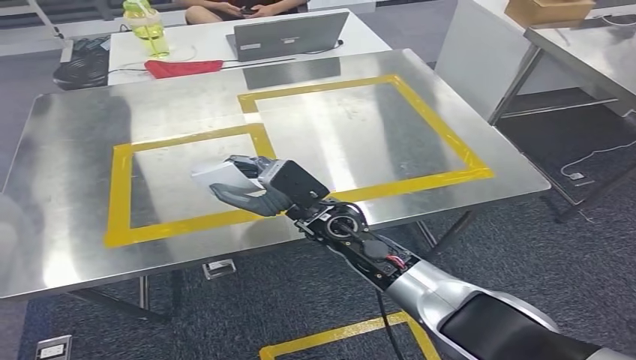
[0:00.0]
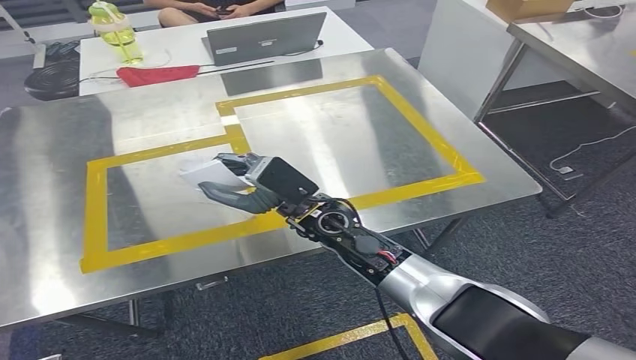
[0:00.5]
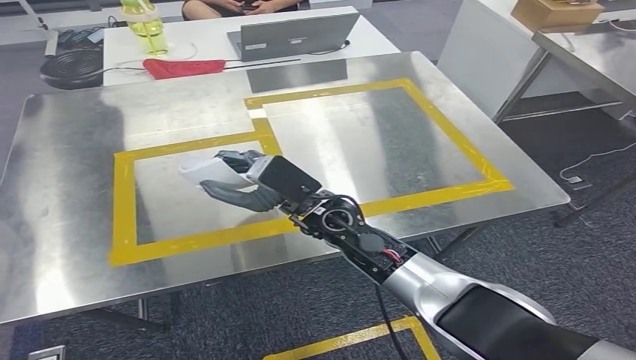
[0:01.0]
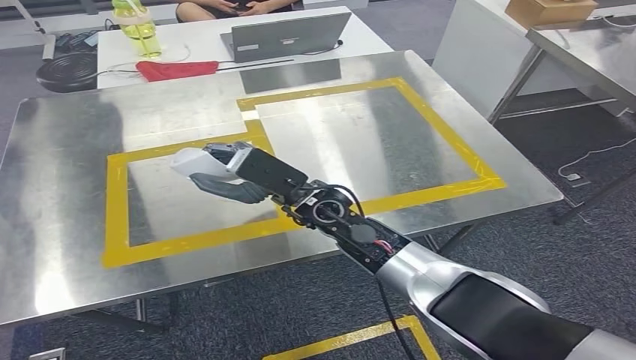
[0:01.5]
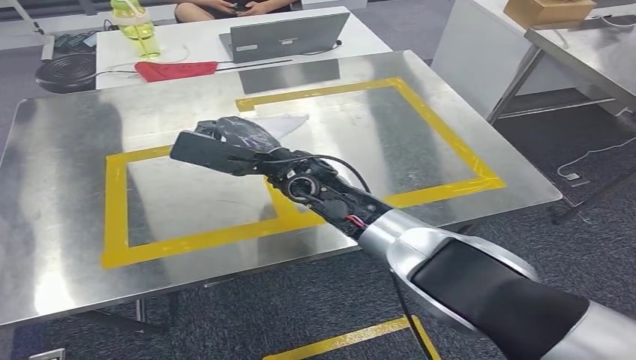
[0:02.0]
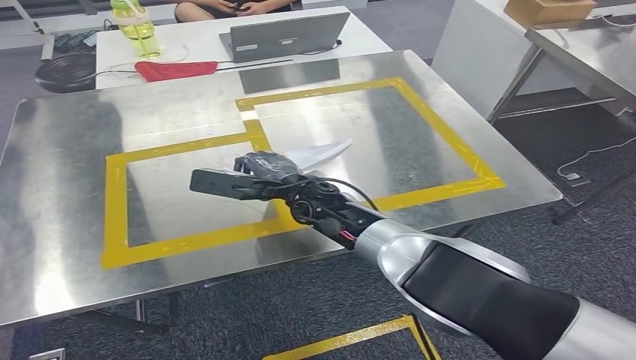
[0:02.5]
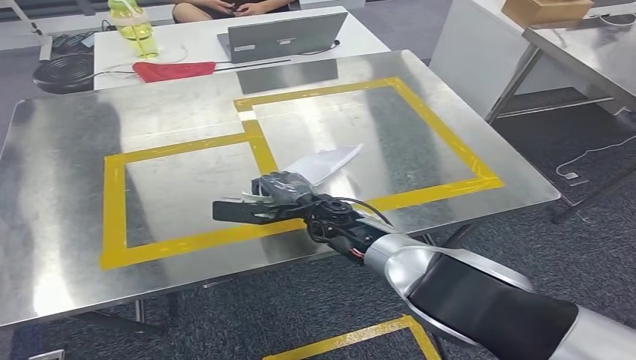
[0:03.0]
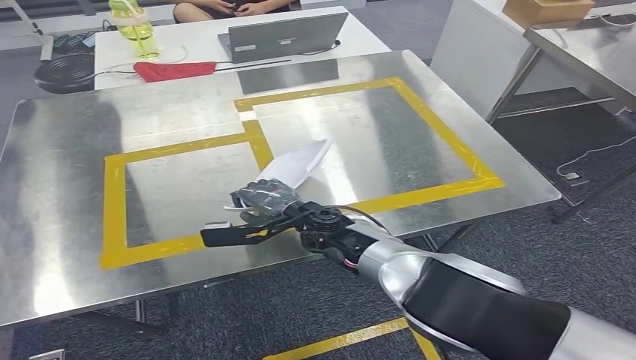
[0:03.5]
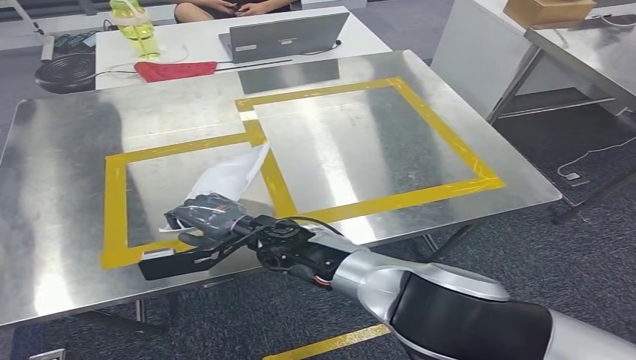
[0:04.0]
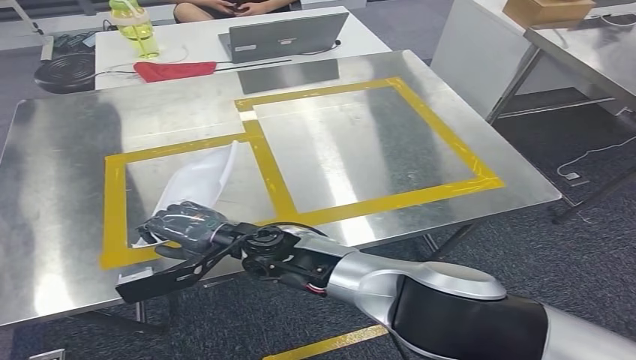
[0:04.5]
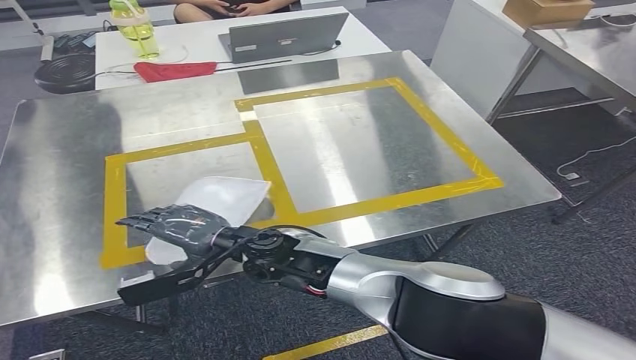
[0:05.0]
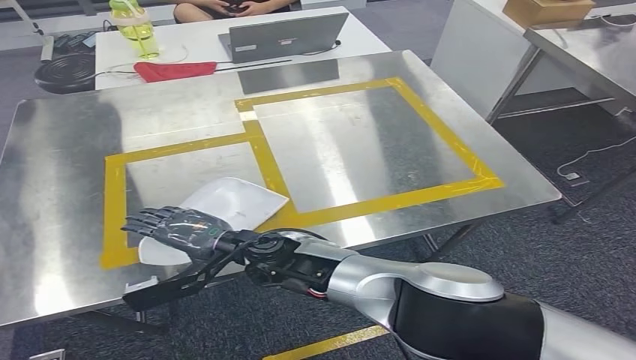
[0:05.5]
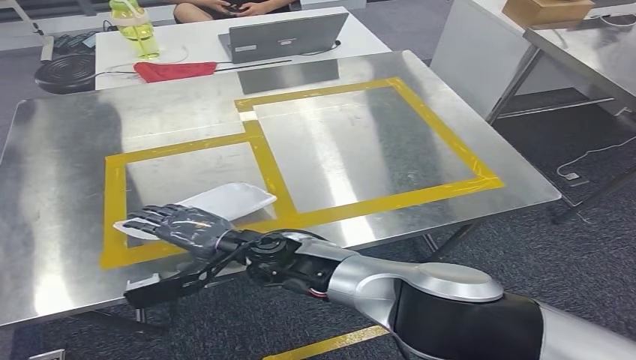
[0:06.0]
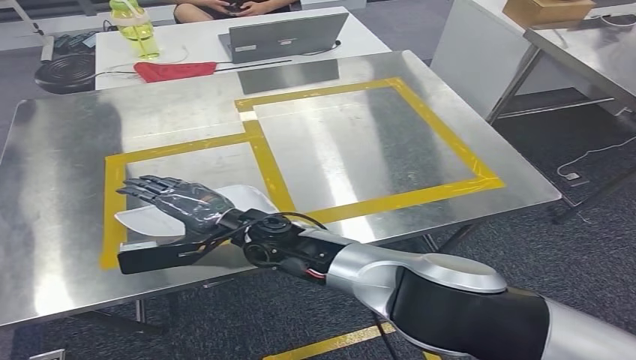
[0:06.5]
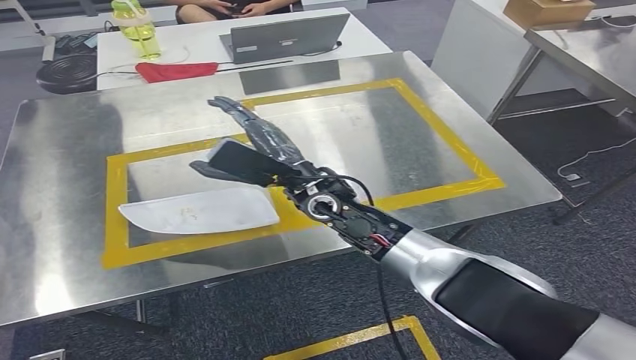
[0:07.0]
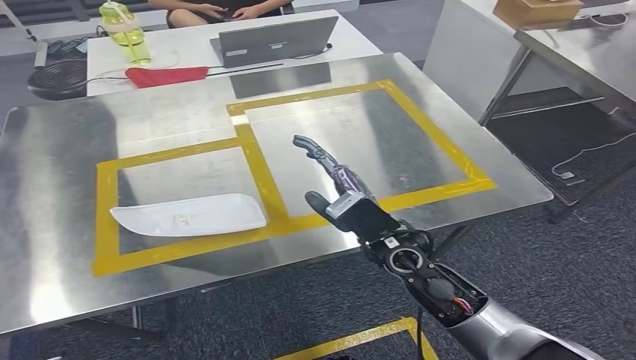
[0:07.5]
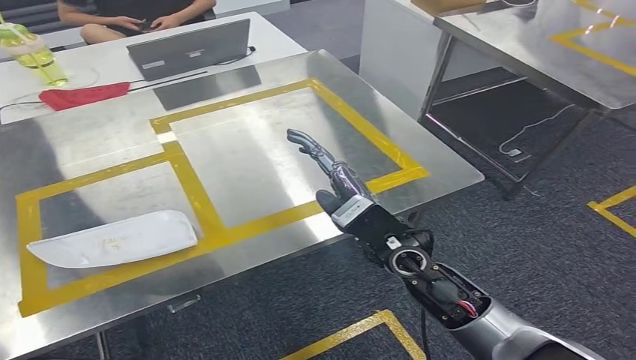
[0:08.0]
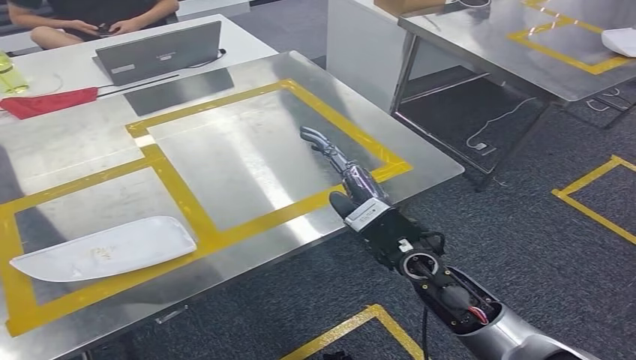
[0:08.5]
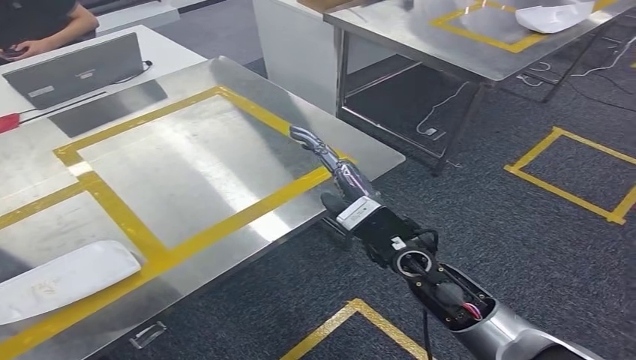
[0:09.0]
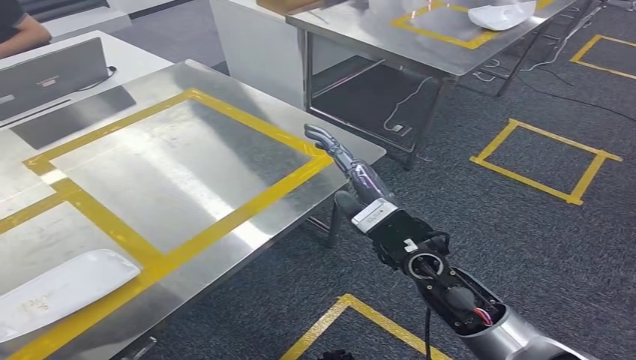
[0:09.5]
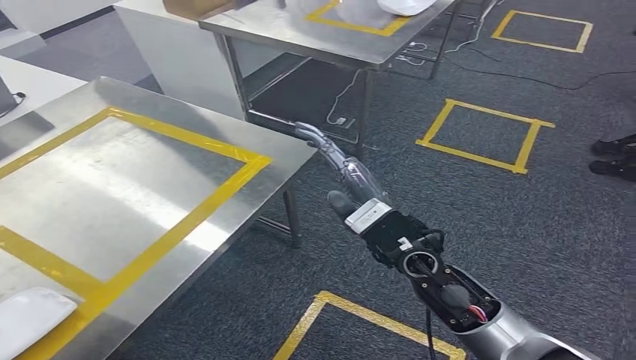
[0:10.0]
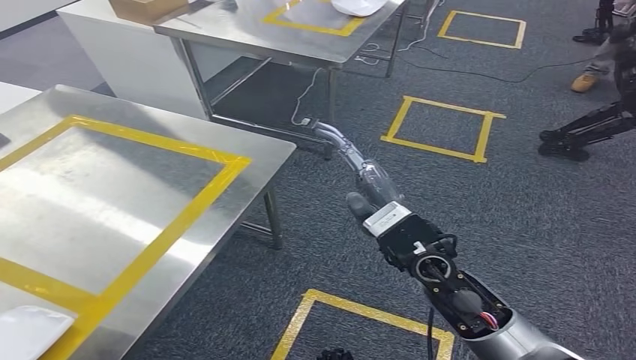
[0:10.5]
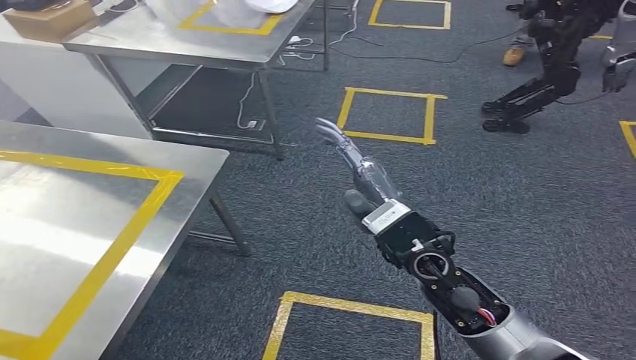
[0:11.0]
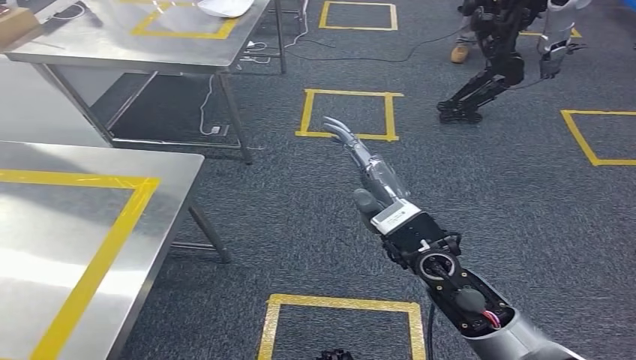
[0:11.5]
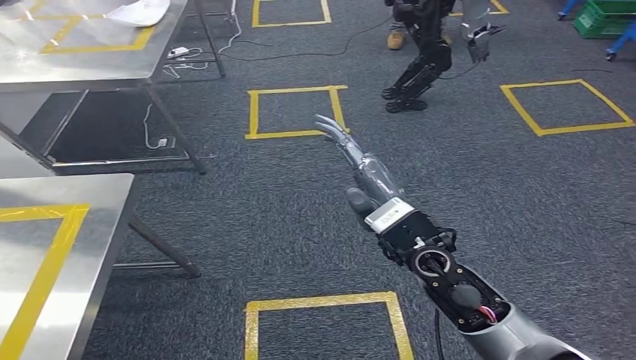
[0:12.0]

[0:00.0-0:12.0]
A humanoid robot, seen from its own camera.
Step, 0:00.0 to 0:07.0: Insert the small parts into the corresponding holes on the workbench.
0:02.0 to 0:04.0: The right hand moves downward, backward and to the left, roughly 10 cm.
0:04.0 to 0:06.0: The hands make only small movements.

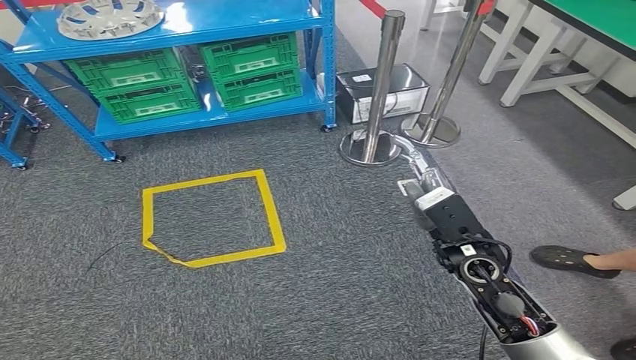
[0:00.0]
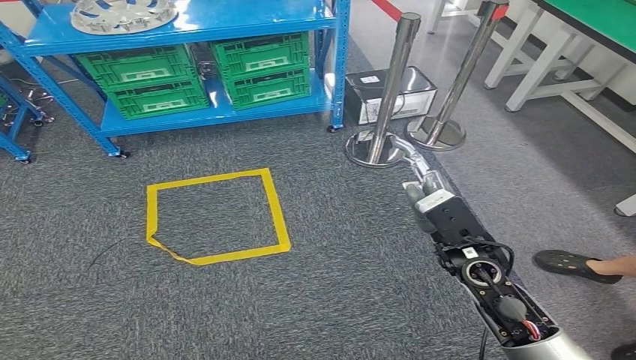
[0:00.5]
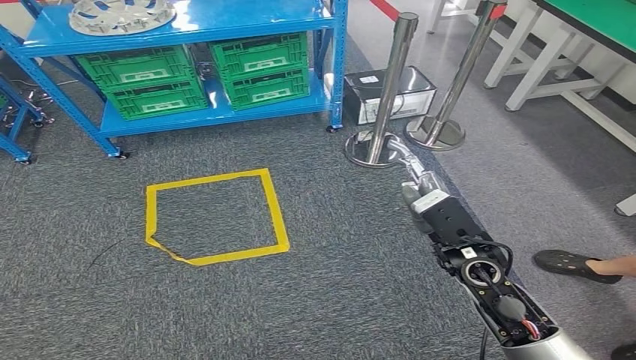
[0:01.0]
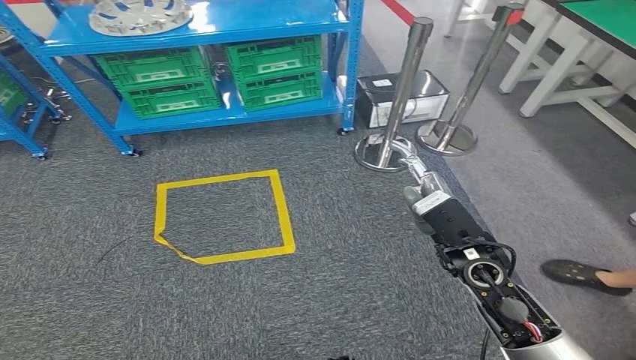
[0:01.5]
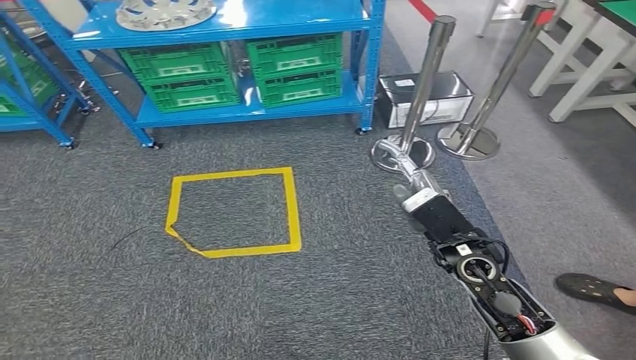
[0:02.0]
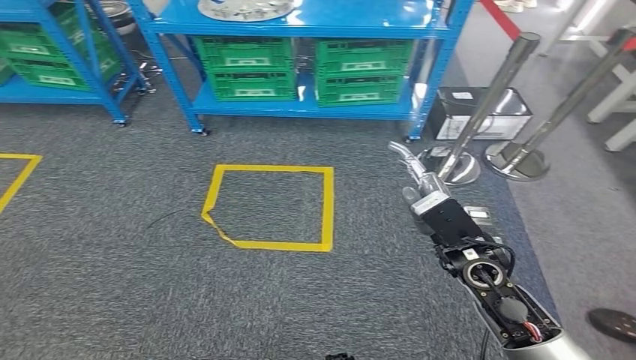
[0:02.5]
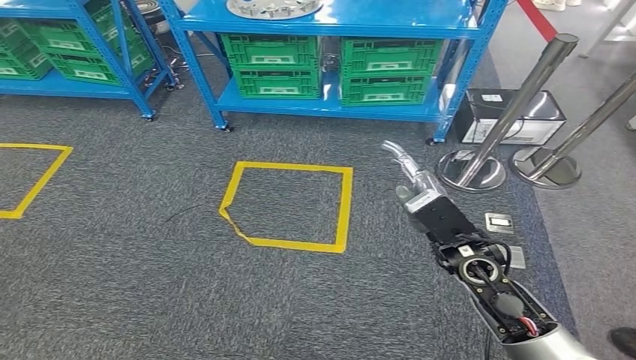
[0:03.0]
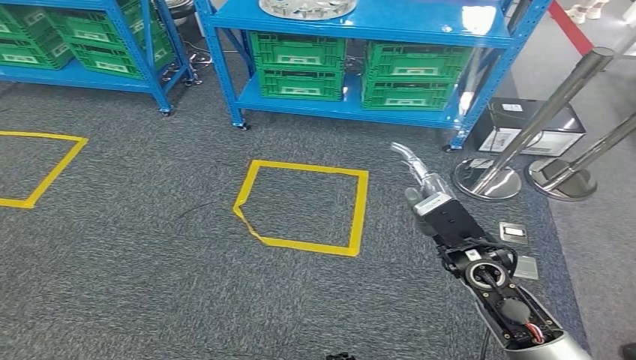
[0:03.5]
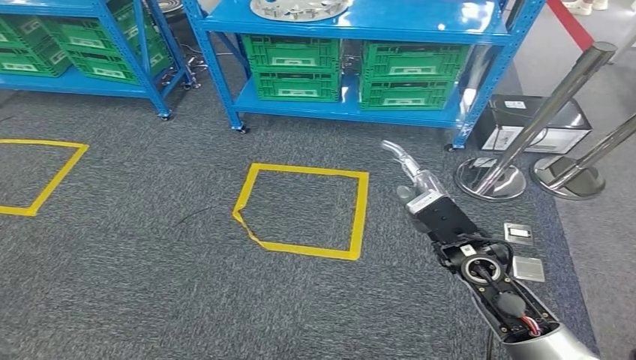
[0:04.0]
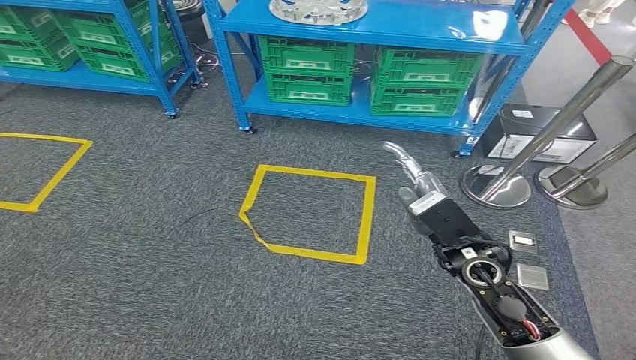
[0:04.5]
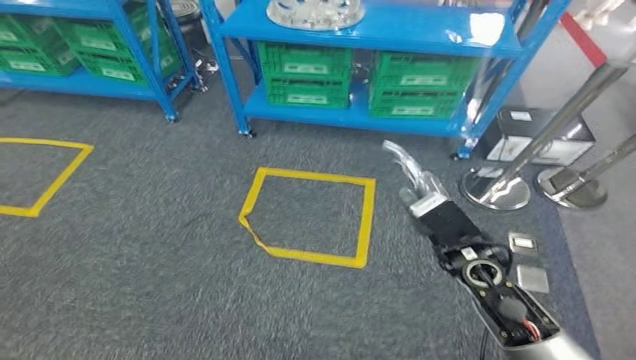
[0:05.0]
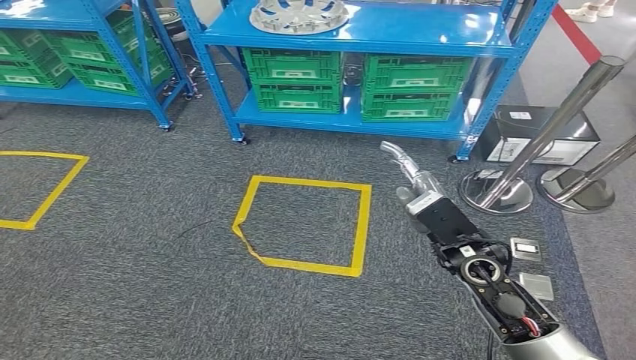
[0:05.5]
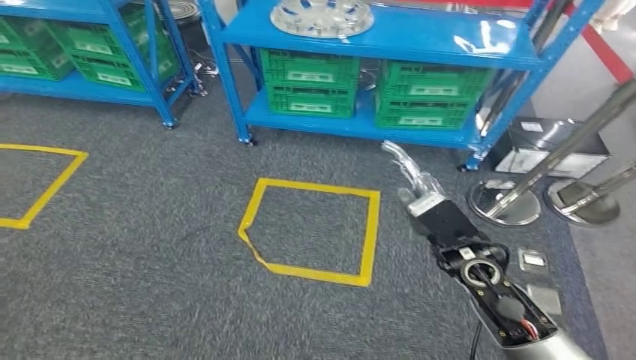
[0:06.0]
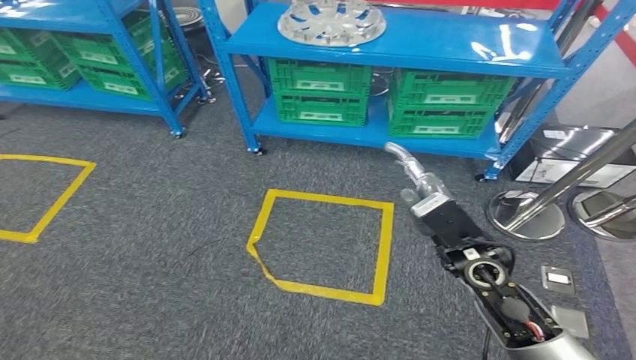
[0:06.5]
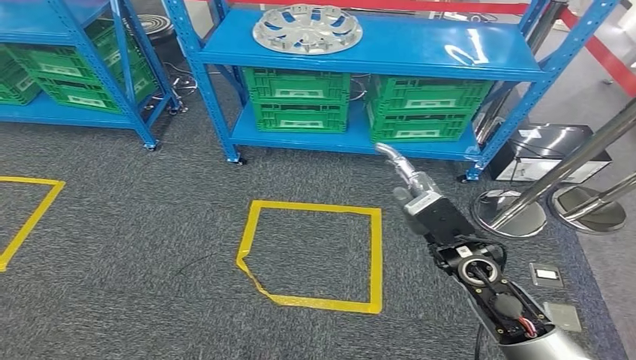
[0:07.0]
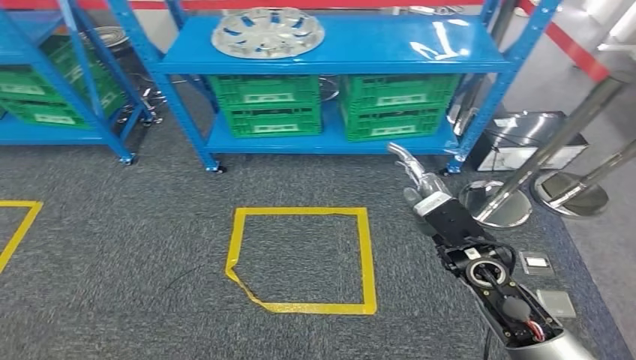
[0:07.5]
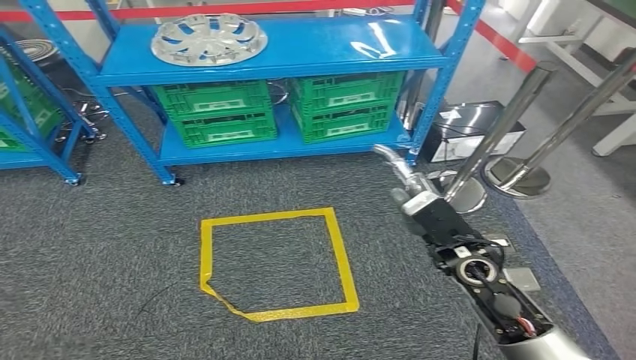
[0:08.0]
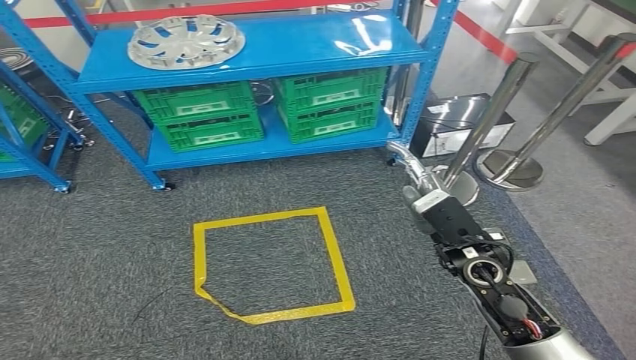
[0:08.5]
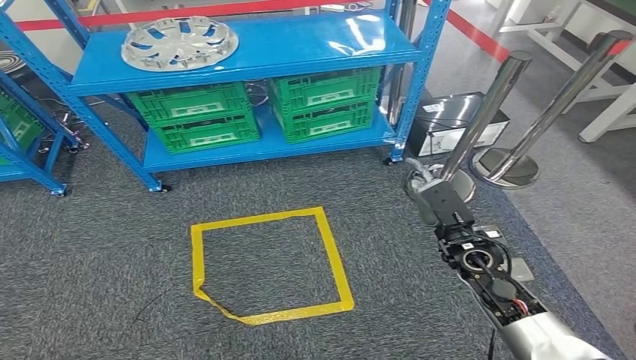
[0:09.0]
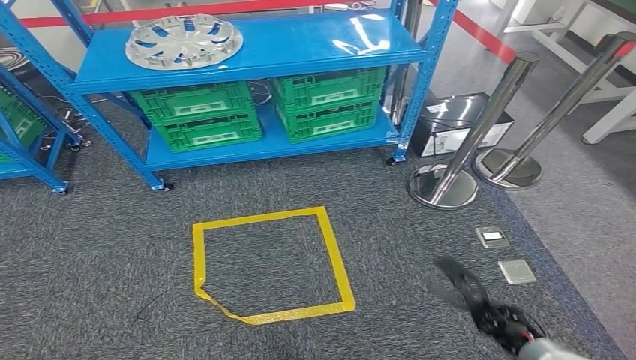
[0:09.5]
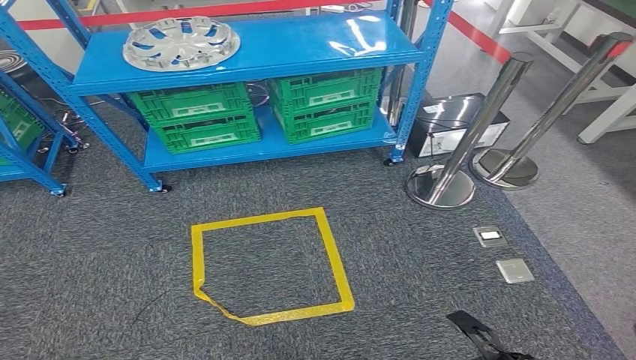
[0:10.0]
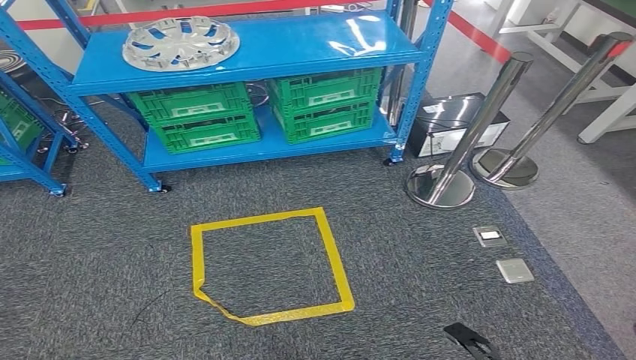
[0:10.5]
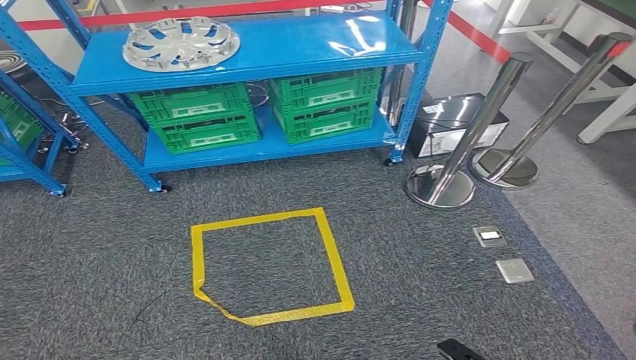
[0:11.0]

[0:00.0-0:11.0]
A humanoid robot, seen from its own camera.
Step, 0:00.0 to 0:11.0: Move to the initial position at the workbench.
0:09.0 to 0:11.0: The right hand travels backward and downward by approximately 35 cm.
